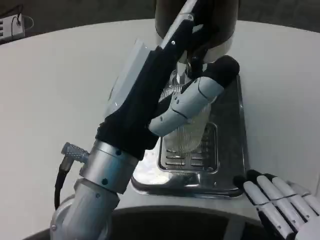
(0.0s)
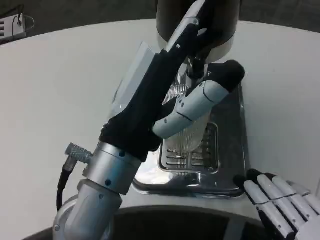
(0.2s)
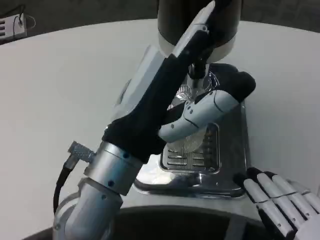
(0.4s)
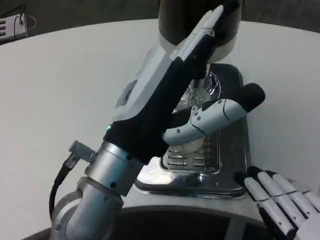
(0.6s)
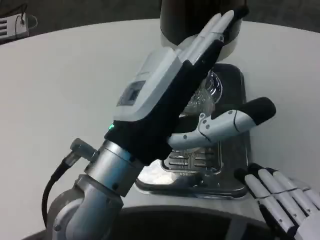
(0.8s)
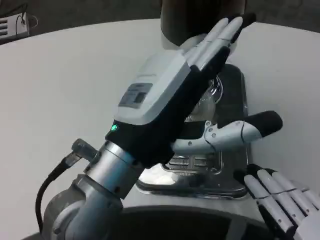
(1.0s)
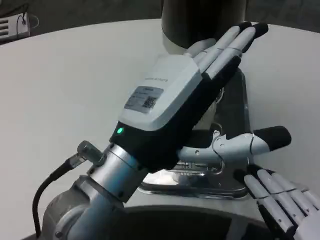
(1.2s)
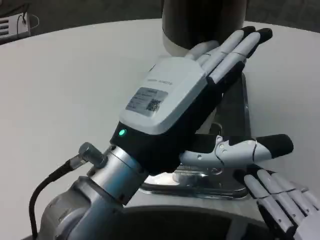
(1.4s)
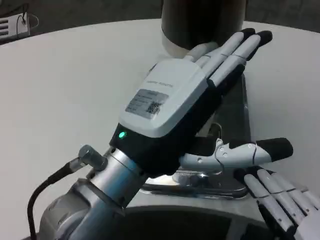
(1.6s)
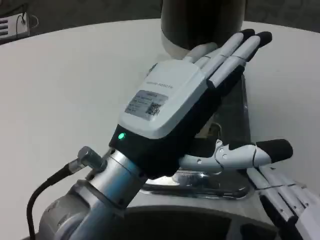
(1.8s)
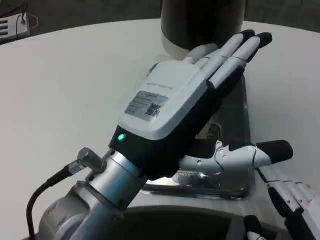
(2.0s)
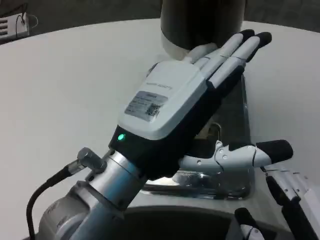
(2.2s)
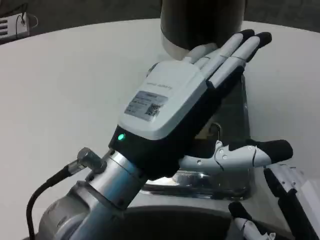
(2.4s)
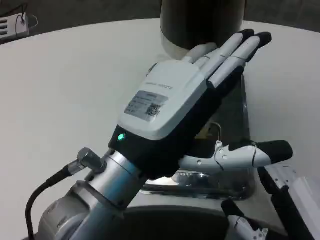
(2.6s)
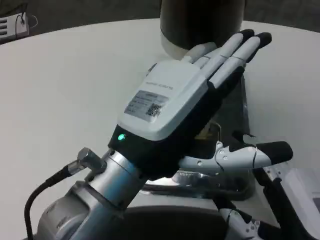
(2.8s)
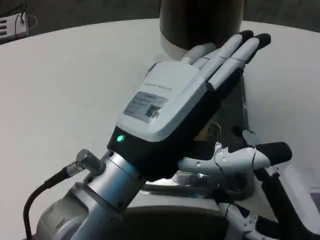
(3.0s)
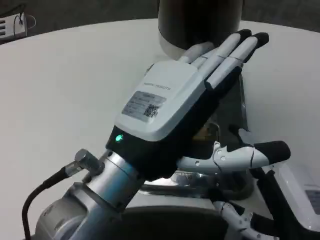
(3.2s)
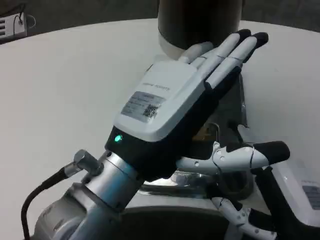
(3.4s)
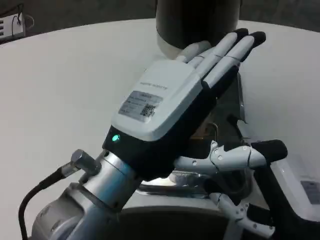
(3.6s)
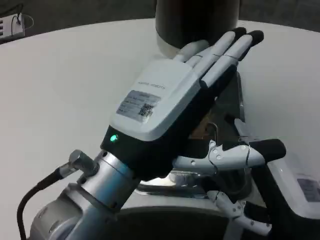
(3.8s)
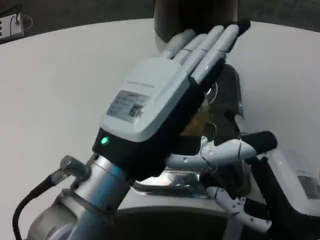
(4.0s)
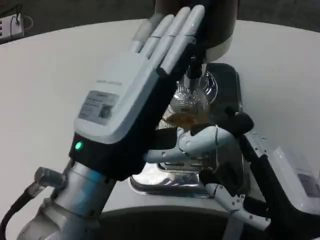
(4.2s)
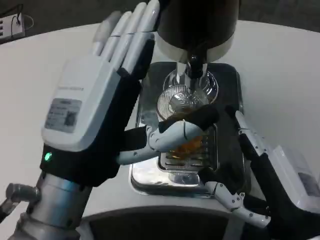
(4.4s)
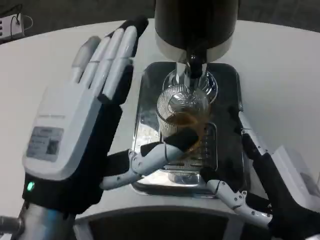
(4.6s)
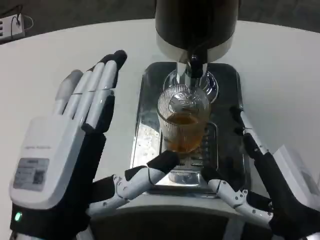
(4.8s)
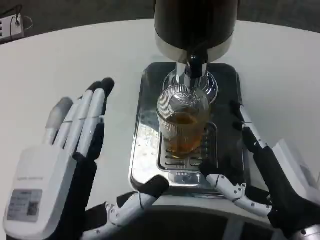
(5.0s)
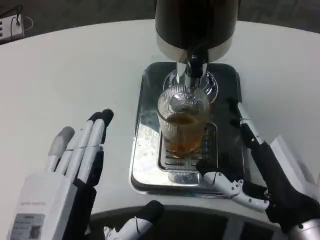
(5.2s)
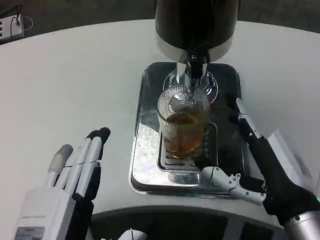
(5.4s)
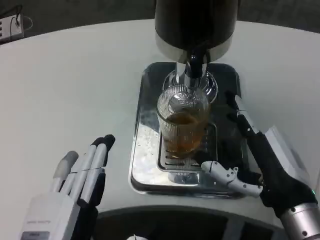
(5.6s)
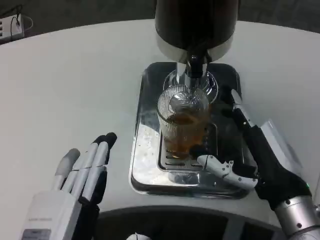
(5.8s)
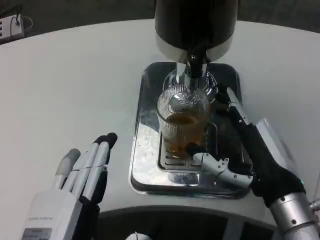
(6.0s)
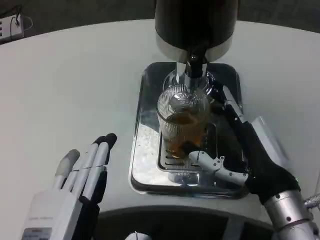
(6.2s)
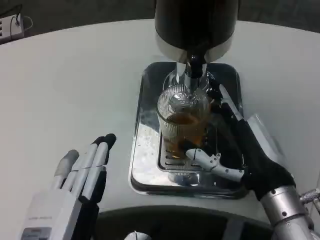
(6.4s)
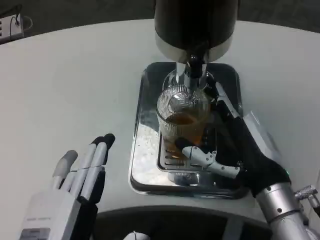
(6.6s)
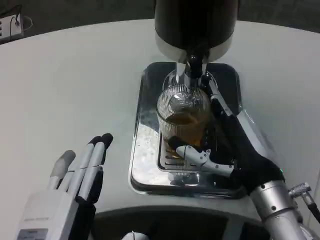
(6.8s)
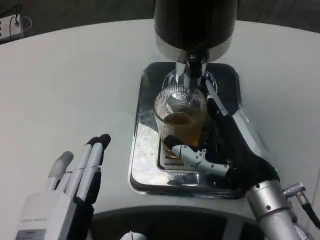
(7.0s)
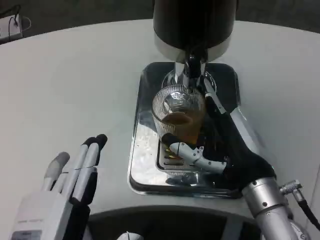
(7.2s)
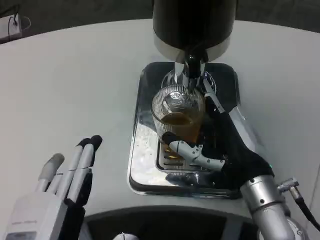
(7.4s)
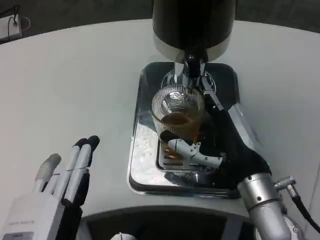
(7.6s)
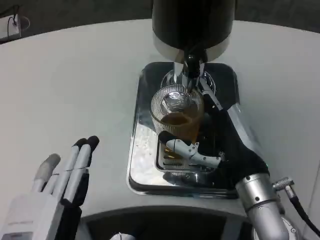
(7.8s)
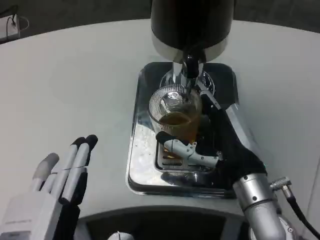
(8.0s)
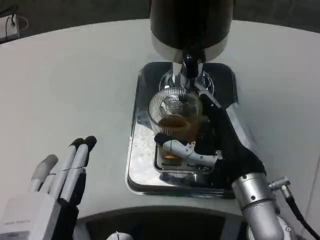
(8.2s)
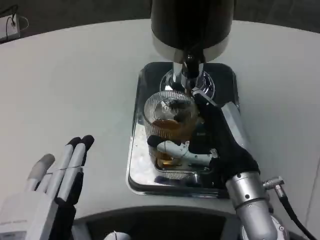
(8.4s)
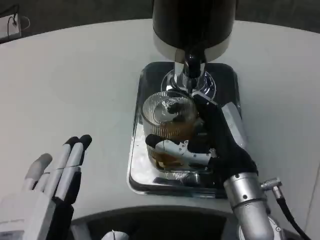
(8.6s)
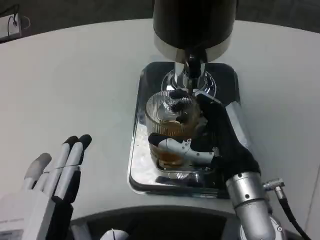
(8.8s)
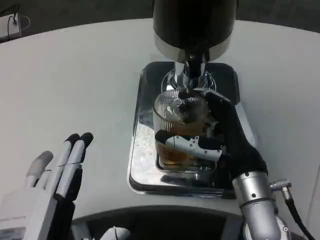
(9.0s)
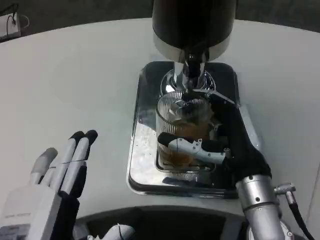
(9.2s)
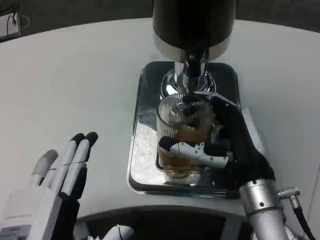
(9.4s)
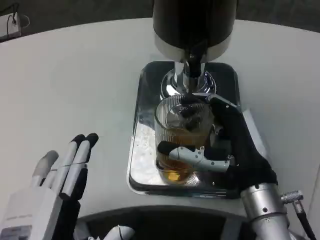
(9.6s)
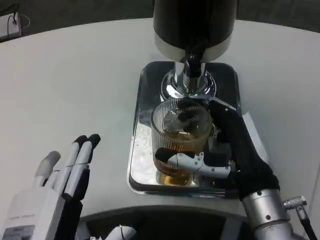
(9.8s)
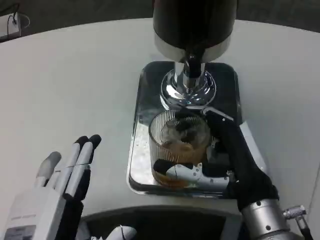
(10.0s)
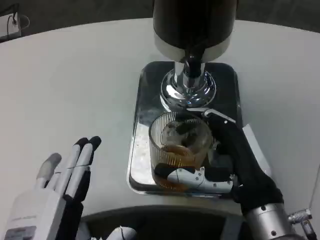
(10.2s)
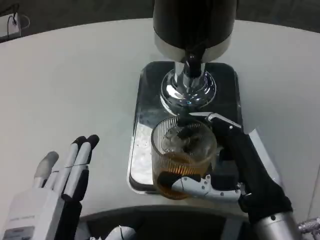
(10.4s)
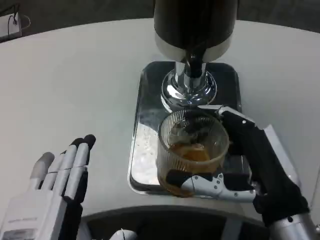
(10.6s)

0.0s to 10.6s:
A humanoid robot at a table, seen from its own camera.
Task of the whole recording: Grasp the cup under the faucet to collect the drink, then remove the cup.
1.6s to 3.0s: The right hand shifts roughly 5 cm forward.
3.0s to 4.6s: The left hand shifts by about 5 cm.
4.6s to 6.0s: The right hand travels forward by roughly 5 cm. The left hand moves downward, approximately 10 cm.
7.6s to 9.0s: The hands move only a little.
9.0s to 10.6s: The right hand moves backward, some 10 cm.

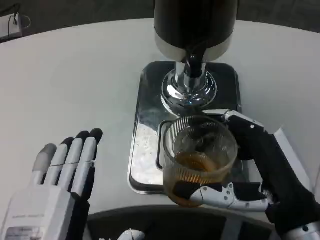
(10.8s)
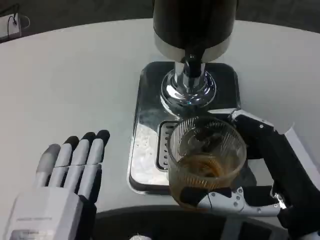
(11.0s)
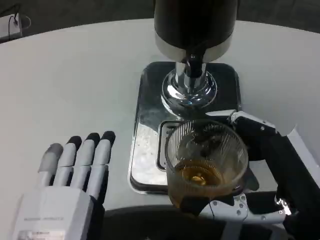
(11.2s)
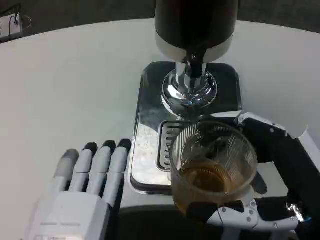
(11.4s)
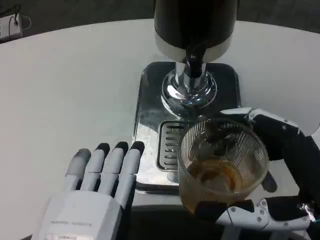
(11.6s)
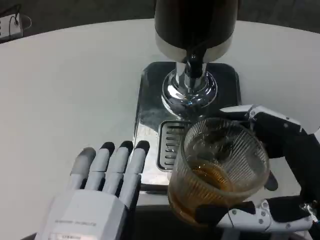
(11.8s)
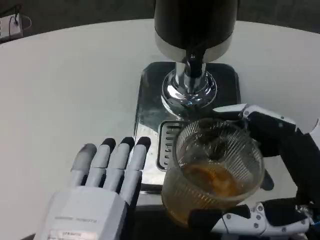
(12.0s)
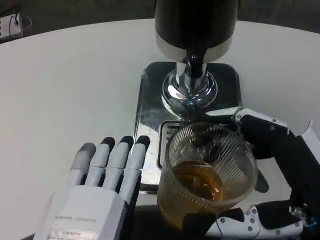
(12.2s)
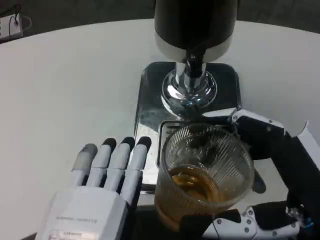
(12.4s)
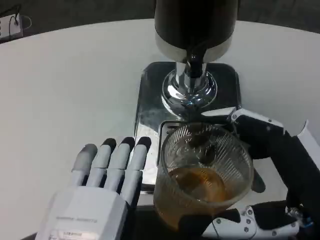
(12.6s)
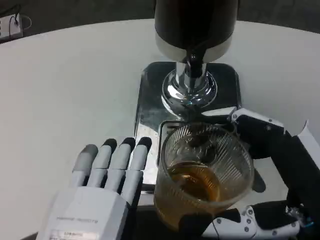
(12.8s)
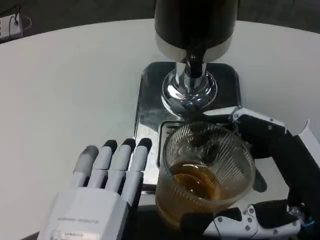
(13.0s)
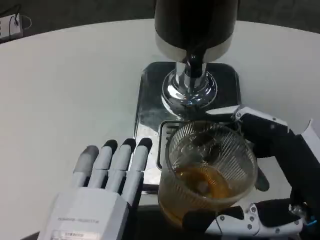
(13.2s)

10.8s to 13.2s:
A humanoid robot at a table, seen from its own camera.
Task of the whole recording: Grasp the cup under the faucet to collect the drink, then remove the cup.
10.8s to 12.0s: The right hand moves about 5 cm, while the left hand moves roughly 5 cm.
12.0s to 13.2s: The two hands keep their place.

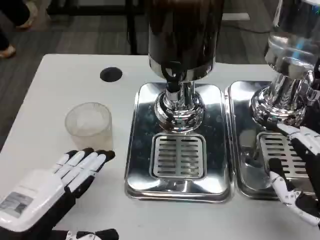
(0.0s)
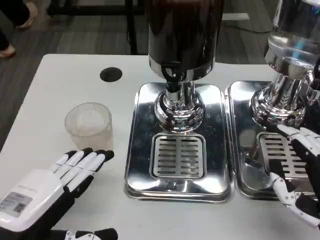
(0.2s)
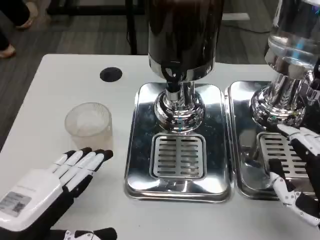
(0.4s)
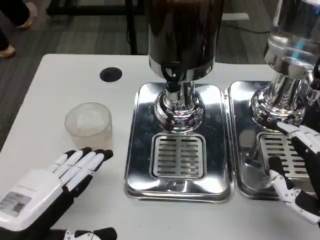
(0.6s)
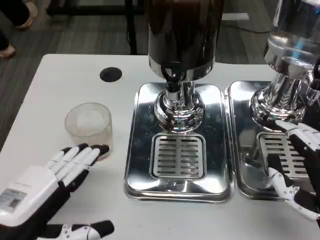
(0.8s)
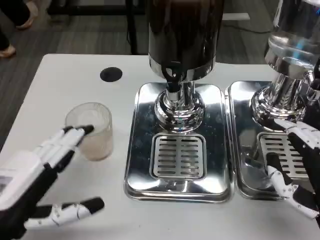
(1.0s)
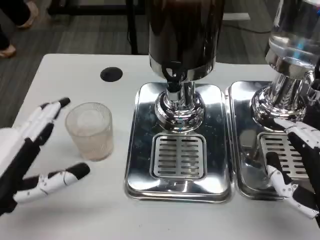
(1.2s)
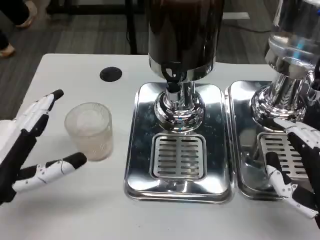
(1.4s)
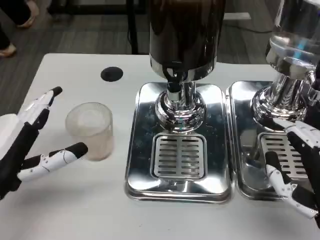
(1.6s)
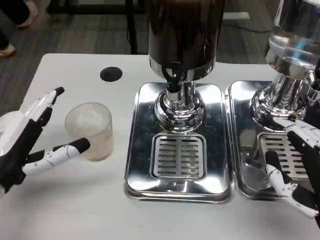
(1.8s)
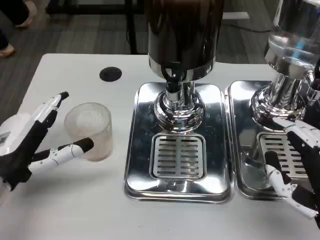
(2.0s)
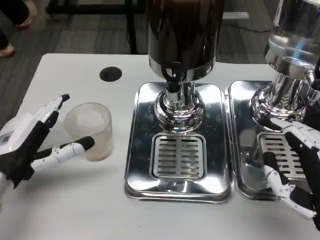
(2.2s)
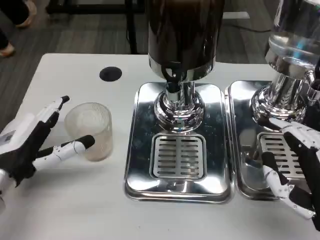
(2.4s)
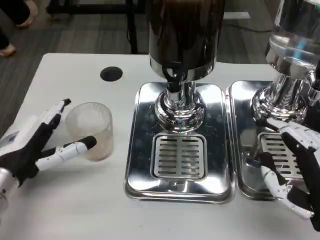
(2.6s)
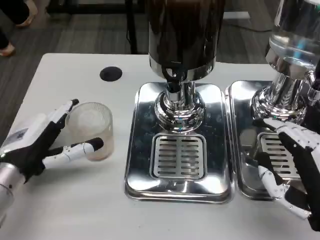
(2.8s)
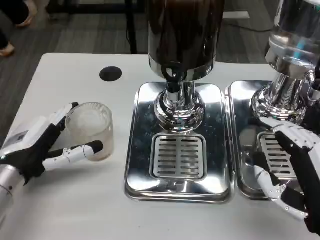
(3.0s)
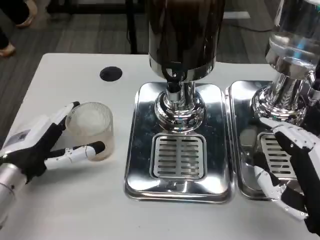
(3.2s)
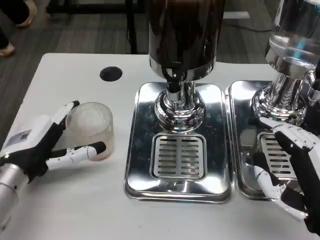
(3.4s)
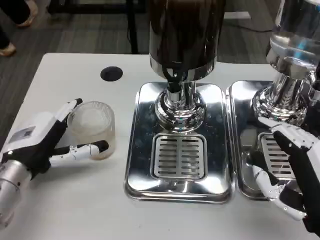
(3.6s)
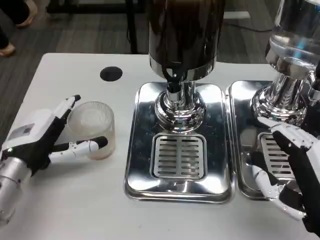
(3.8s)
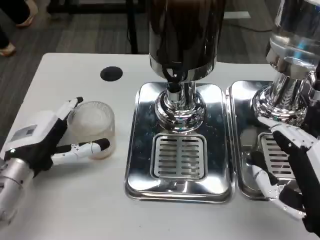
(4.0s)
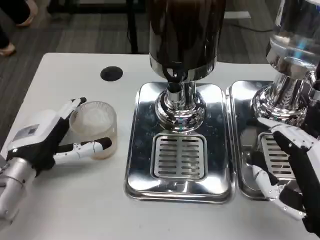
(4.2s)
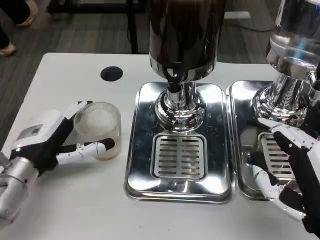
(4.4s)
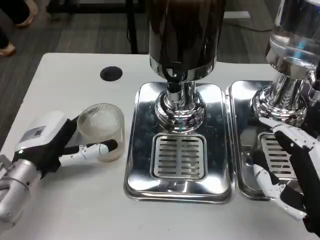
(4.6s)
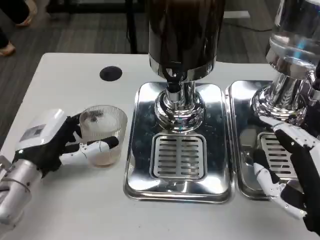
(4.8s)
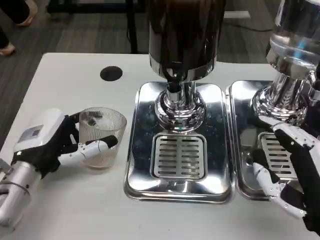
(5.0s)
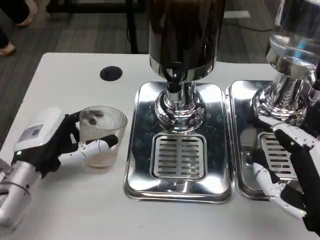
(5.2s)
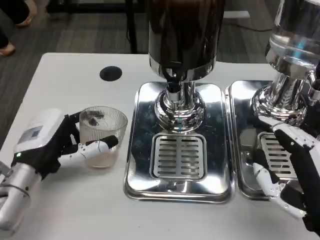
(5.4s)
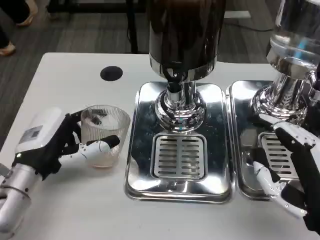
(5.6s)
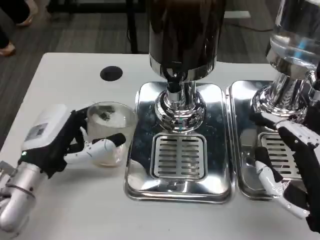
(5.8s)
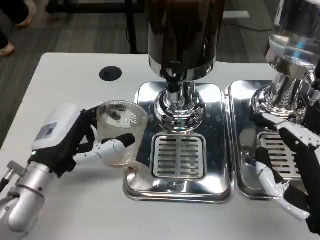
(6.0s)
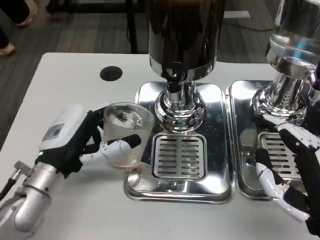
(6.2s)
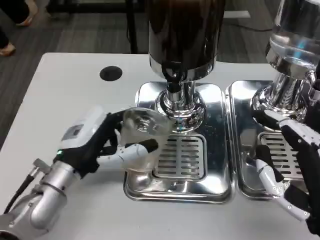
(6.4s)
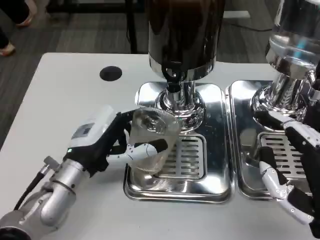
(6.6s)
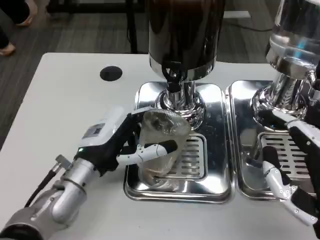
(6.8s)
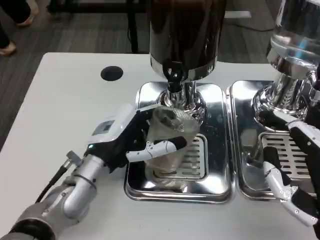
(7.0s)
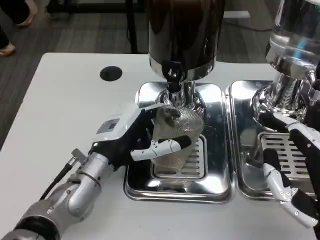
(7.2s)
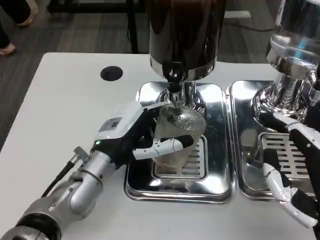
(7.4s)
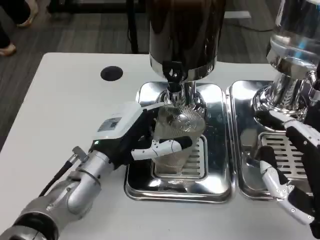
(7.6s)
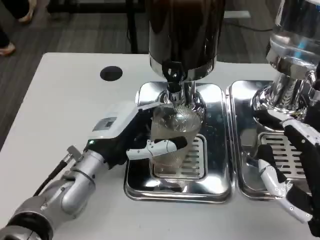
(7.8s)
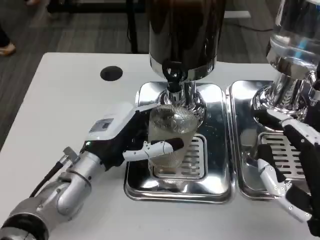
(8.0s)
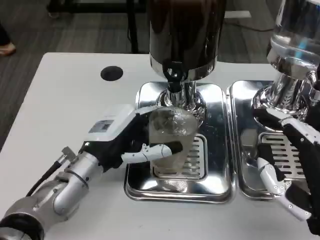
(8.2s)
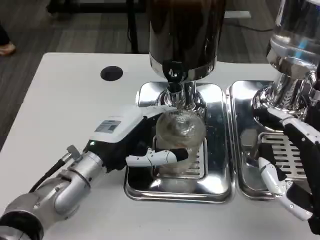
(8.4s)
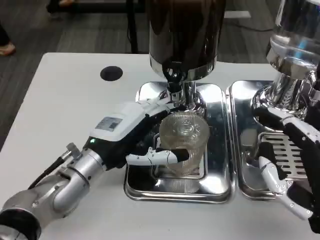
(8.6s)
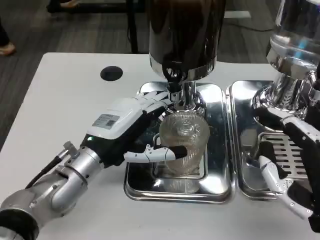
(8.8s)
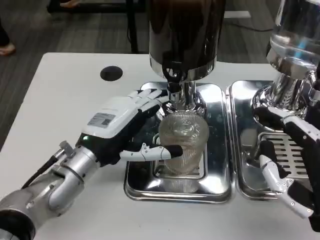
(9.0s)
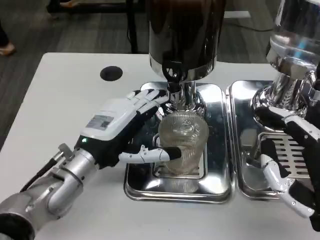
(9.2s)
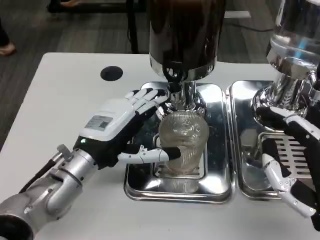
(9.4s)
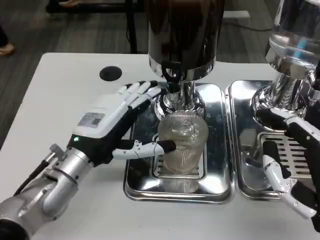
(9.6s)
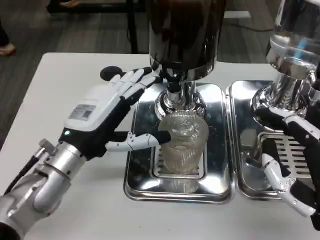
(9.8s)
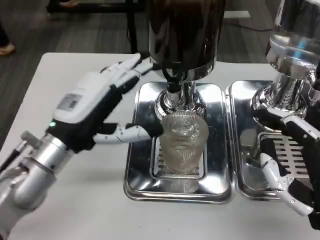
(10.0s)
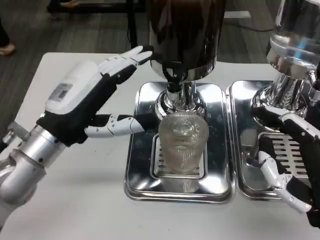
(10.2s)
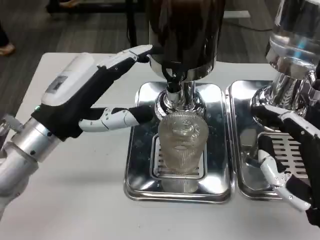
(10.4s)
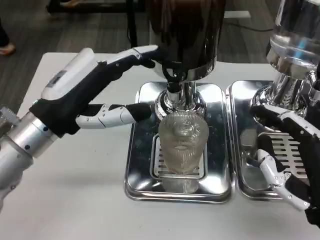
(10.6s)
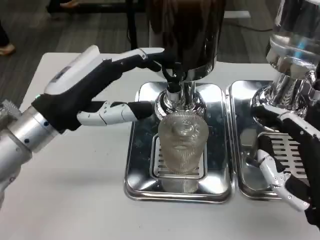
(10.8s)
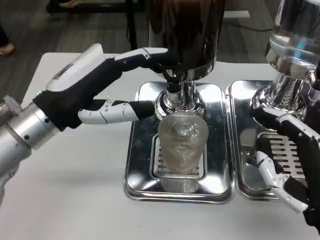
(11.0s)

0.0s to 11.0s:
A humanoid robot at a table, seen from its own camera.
Task of the whole recording: Grasp the cup under the faucet to collect the drink, then remove the cup.
0.0s to 1.6s: The left hand travels forward by approximately 5 cm.
1.6s to 3.2s: The left hand goes some 5 cm forward.
3.2s to 4.8s: There are only small adjustments of the hands.
4.8s to 6.2s: The hands stay close to where they were, moving slightly.
6.2s to 7.8s: The left hand is displaced to the right by roughly 5 cm.
7.8s to 9.4s: The hands make only small movements.
9.4s to 11.0s: The left hand moves upward, roughly 10 cm.
